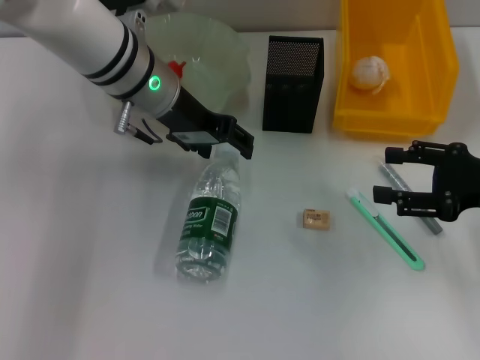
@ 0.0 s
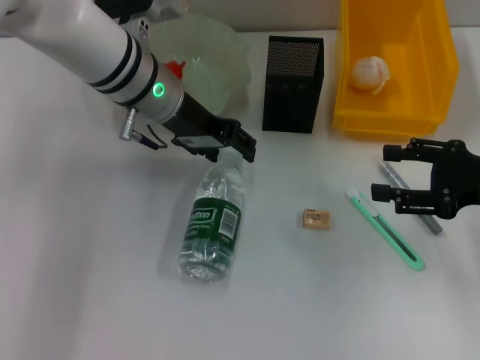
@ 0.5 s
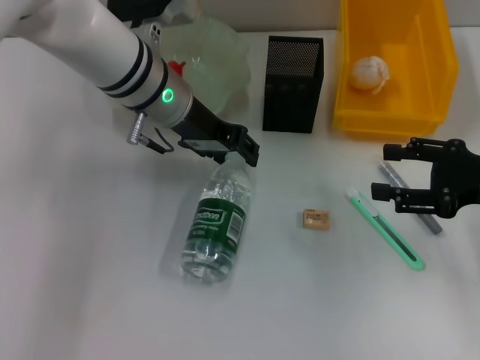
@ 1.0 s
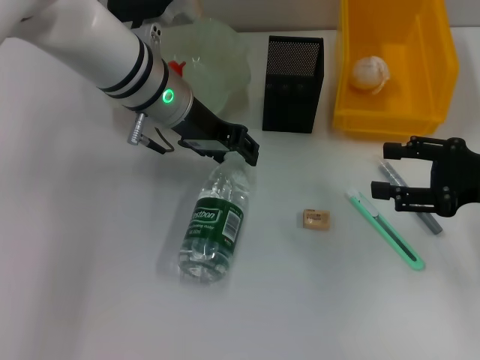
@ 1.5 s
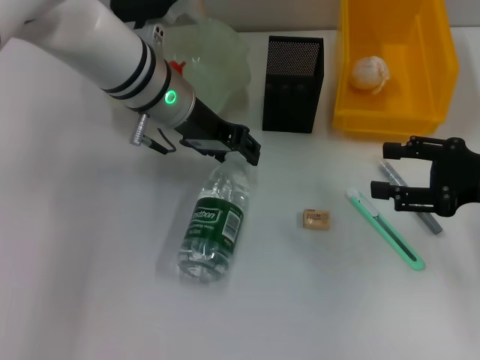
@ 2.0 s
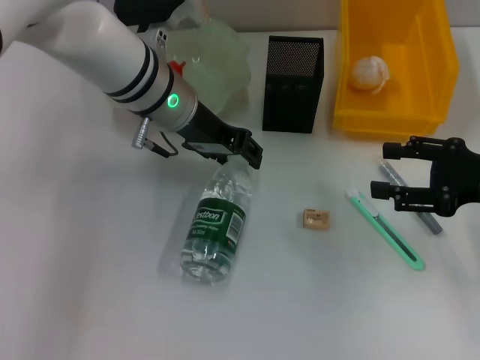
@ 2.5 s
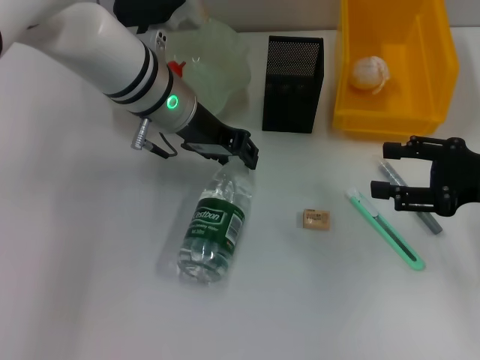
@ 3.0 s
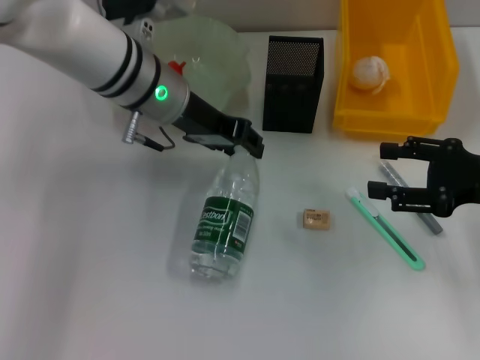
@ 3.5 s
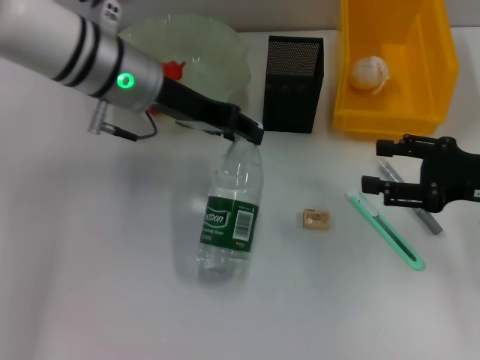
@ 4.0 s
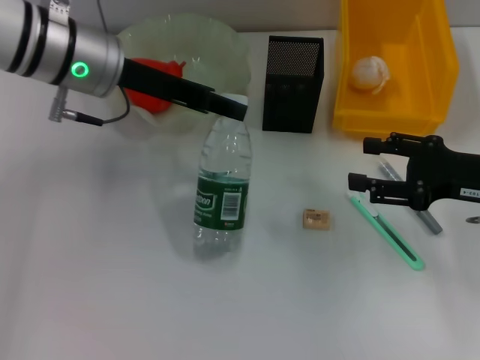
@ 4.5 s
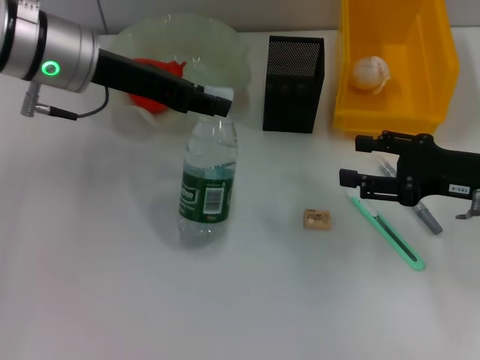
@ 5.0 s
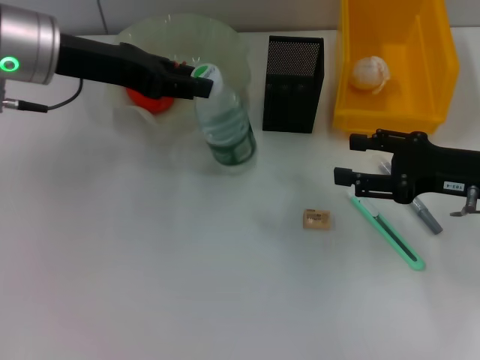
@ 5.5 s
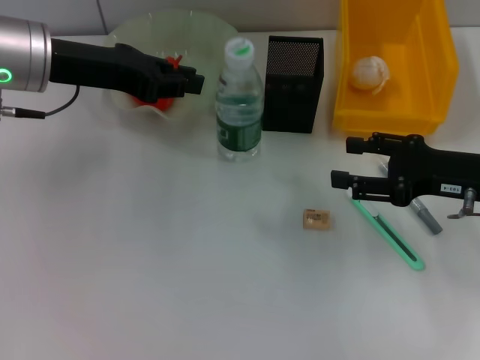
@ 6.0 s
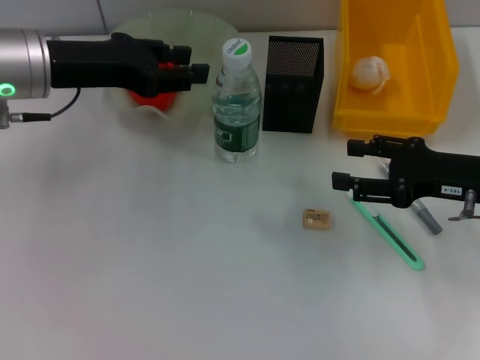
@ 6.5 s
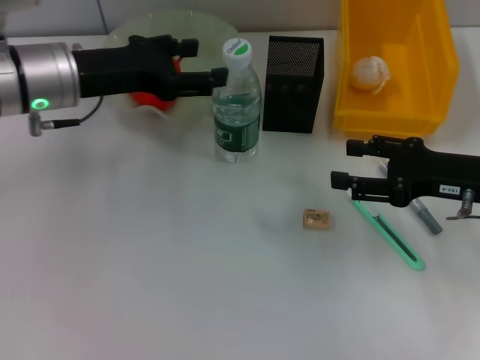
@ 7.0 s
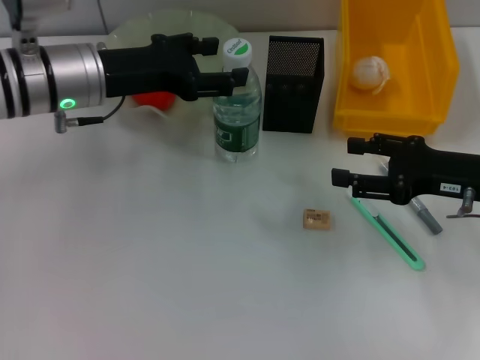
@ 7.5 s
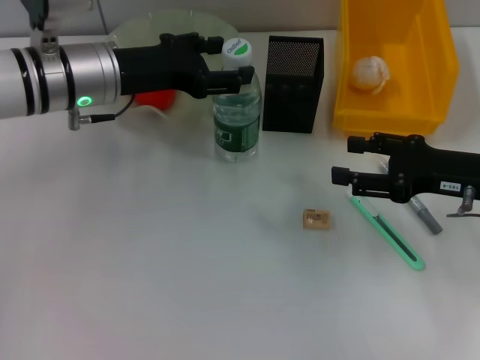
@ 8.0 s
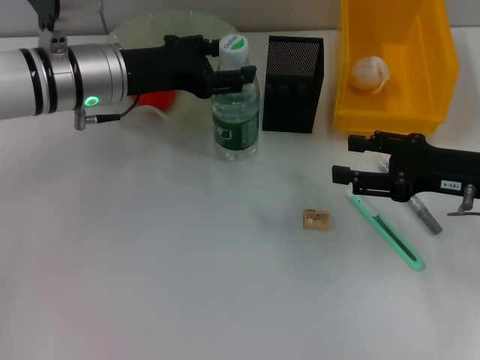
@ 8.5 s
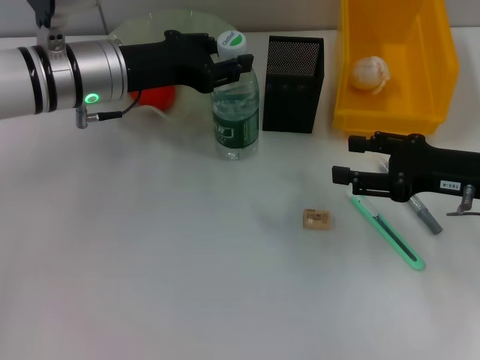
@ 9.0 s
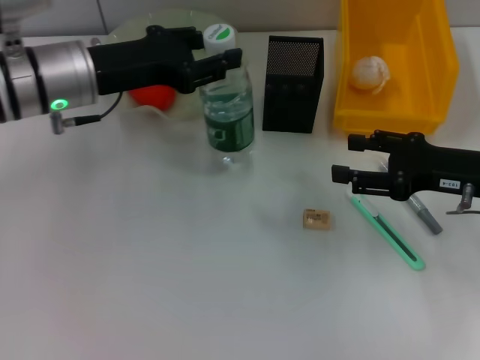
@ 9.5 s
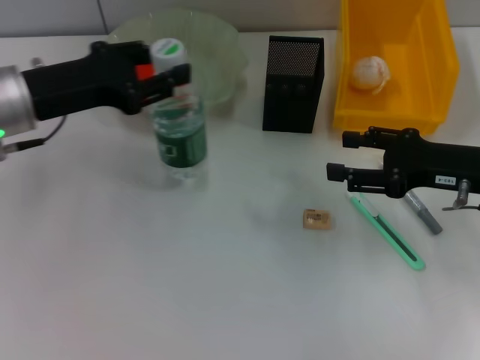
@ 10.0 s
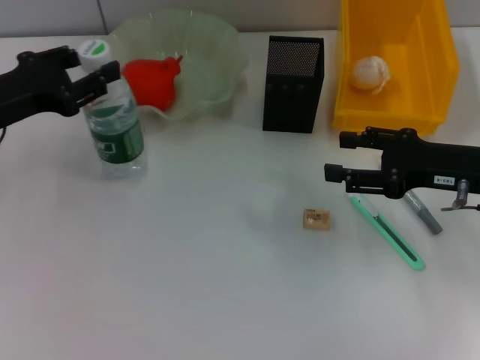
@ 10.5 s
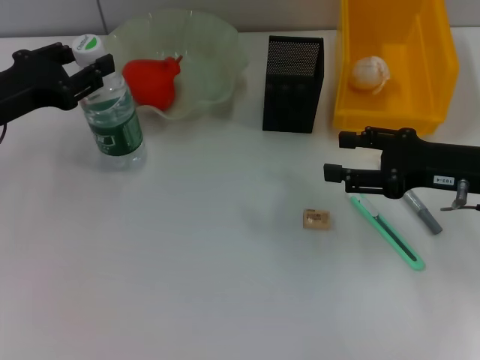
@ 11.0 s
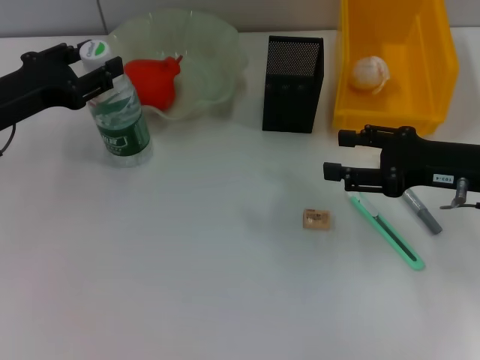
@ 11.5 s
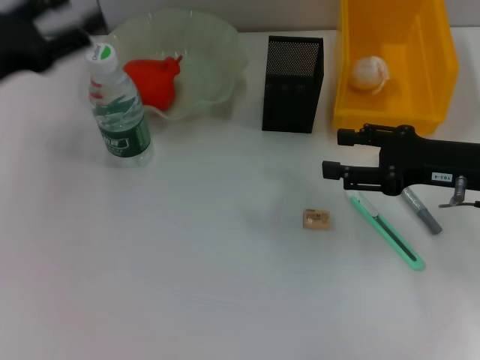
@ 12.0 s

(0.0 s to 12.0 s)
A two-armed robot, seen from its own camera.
Step, 0.0 s - 3.0 s: Grab the water bottle with the left hand.
Step, 3.5 s - 12.0 s: Place the water bottle on the table with the left hand.
0.0 s - 2.0 s: The left gripper closes its fingers.
2.0 s - 4.0 s: The grippers stay close to where they were, moving slightly.
4.0 s - 6.0 s: The left gripper goes approximately 10 cm to the left.
6.0 s - 8.0 s: The left gripper travels downward by roughly 5 cm, and opens.
8.0 s - 10.0 s: The left gripper goes about 10 cm to the left and backward, and closes.
10.0 s - 12.0 s: The left gripper moves to the left, about 5 cm, and opens.

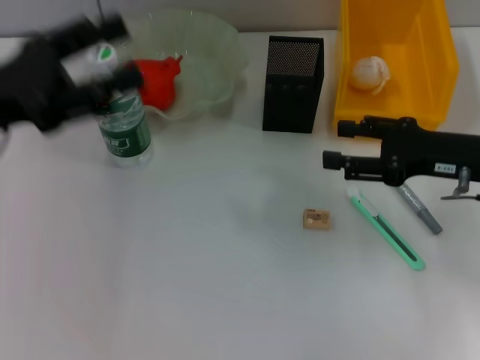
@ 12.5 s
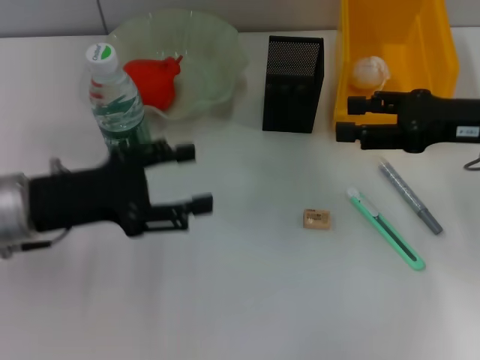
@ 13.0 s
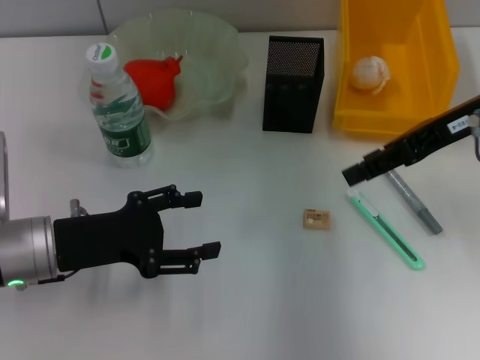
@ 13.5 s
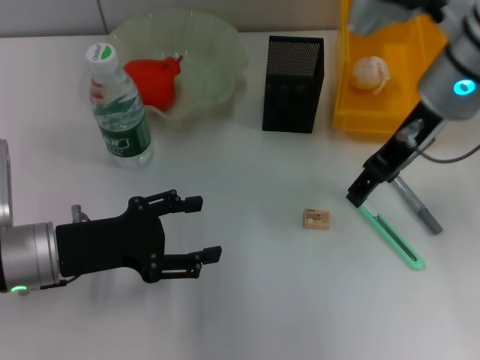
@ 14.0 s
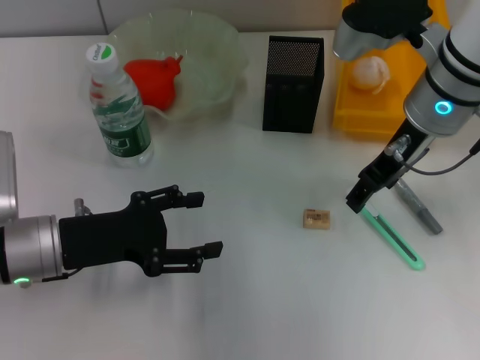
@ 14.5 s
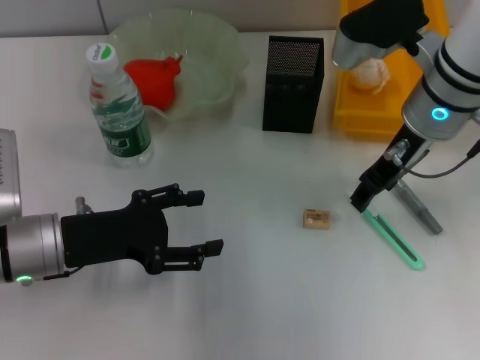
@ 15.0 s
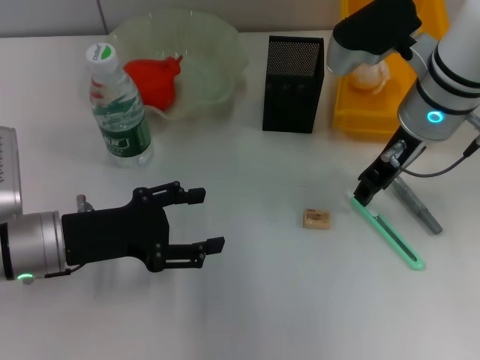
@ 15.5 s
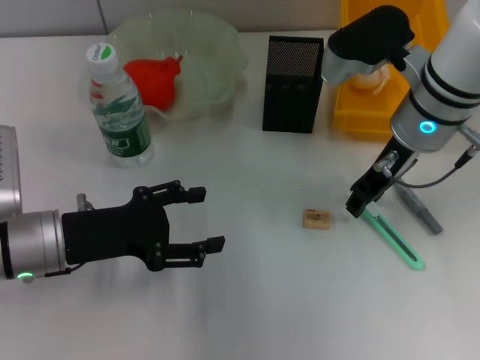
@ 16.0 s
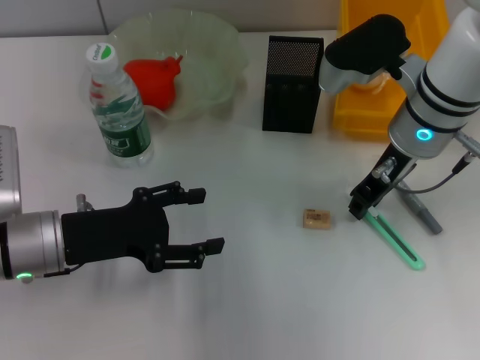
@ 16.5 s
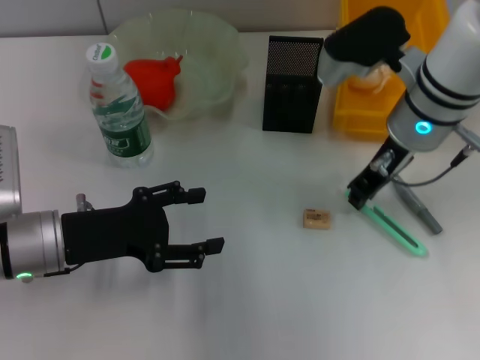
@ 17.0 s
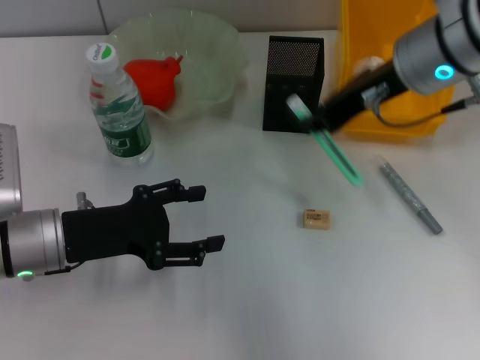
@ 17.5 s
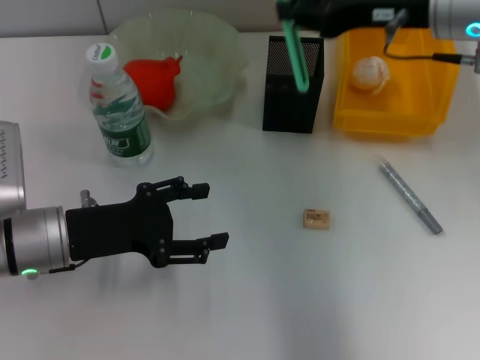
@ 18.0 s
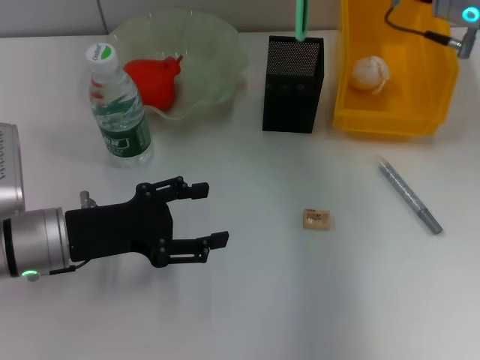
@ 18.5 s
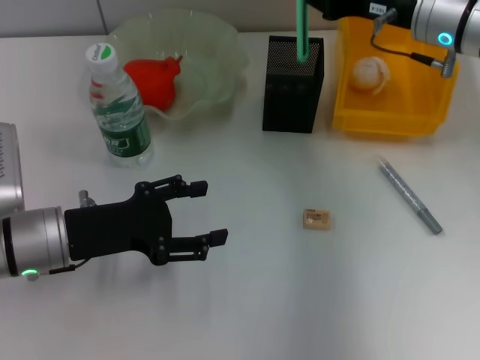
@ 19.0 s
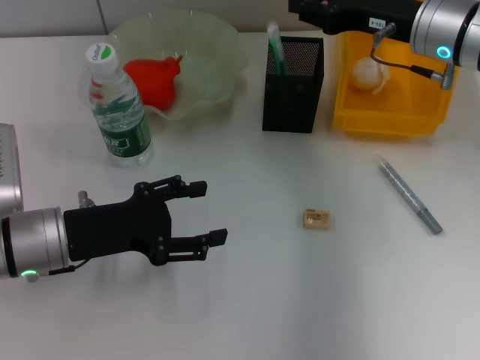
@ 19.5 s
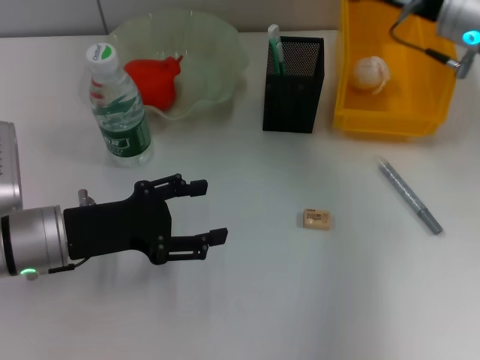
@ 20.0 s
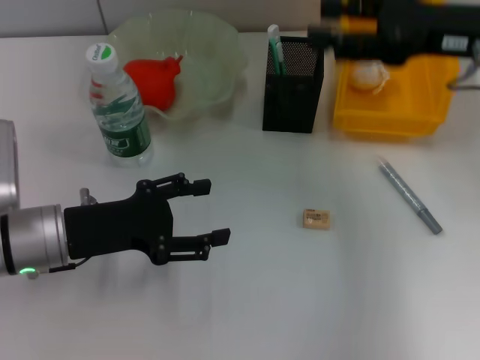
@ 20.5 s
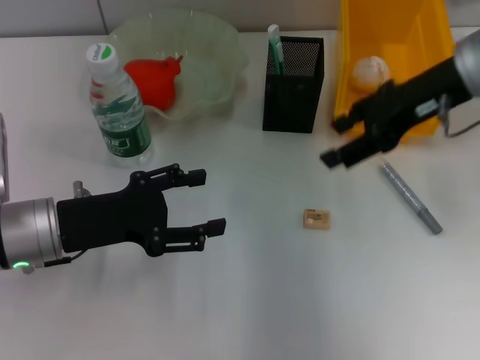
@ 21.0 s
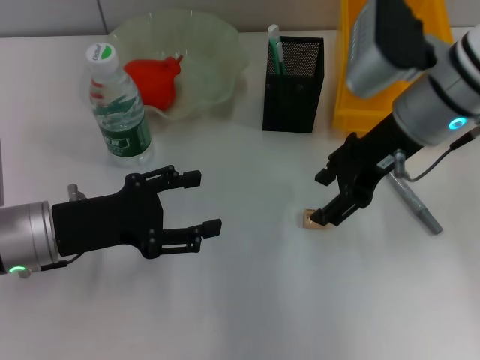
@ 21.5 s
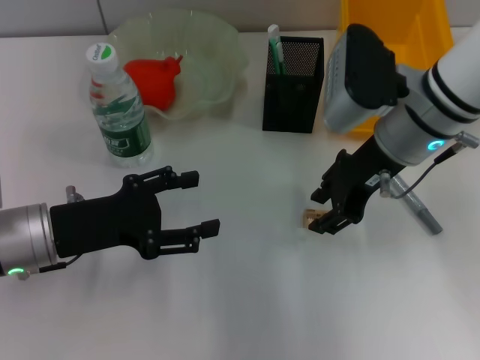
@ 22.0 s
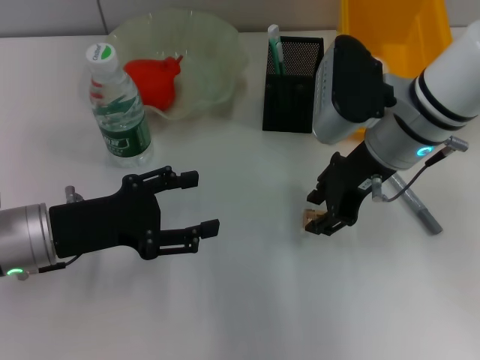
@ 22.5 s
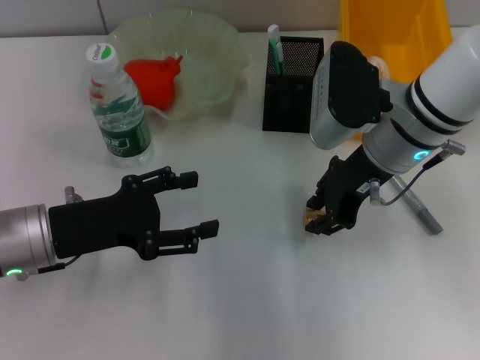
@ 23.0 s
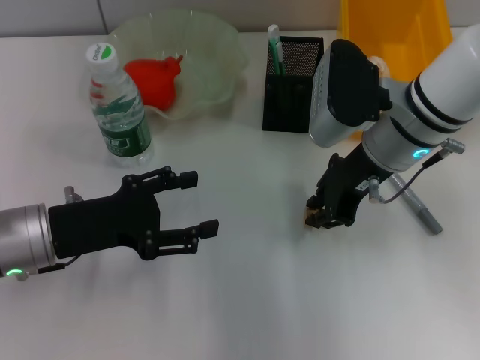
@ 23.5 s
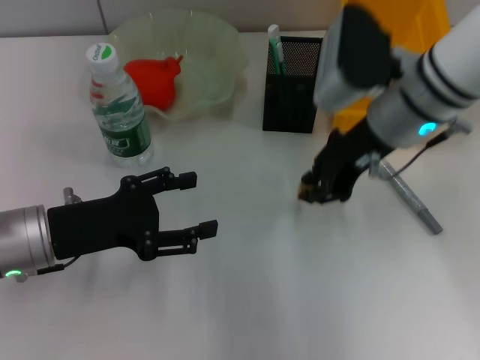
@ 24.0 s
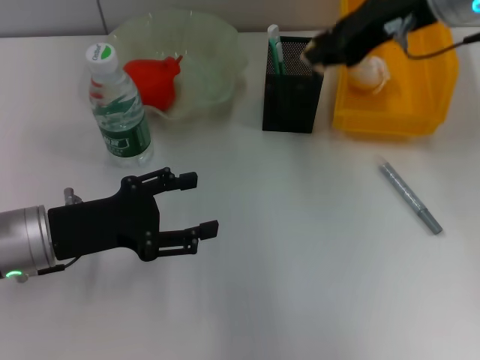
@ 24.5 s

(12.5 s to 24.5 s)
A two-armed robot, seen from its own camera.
Step, 12.5 s - 16.5 s: Grab the blue utility knife with the right hand.
Step, 17.0 s - 19.5 s: Place the blue utility knife into the pen holder with the right hand.
Step, 20.0 s - 23.0 s: Grab the eraser with the right hand.
12.5 s - 14.5 s: The right gripper moves to the left, upward and forward, some 15 cm. Meanwhile the left gripper goes some 10 cm downward.
14.5 s - 16.5 s: The right gripper closes up.
16.5 s - 18.5 s: The right gripper goes some 10 cm to the right and upward.
18.5 s - 20.5 s: The right gripper shifts approximately 5 cm backward, and opens.
20.5 s - 22.5 s: The right gripper is displaced to the left and downward by roughly 15 cm, and closes up.
22.5 s - 24.5 s: The right gripper shifts about 10 cm upward, and closes.

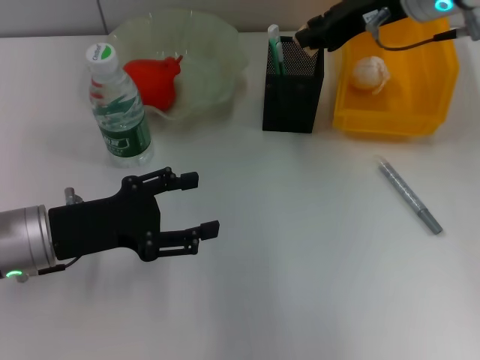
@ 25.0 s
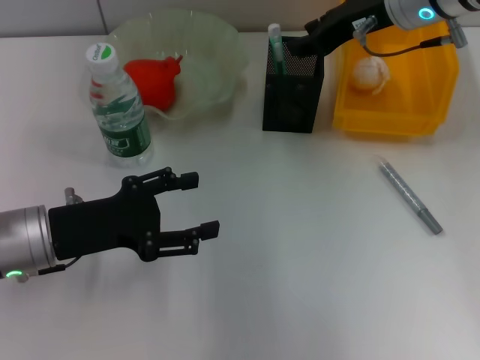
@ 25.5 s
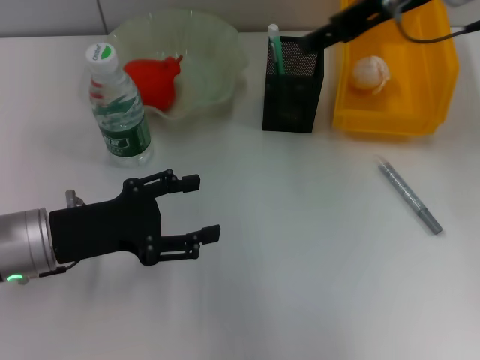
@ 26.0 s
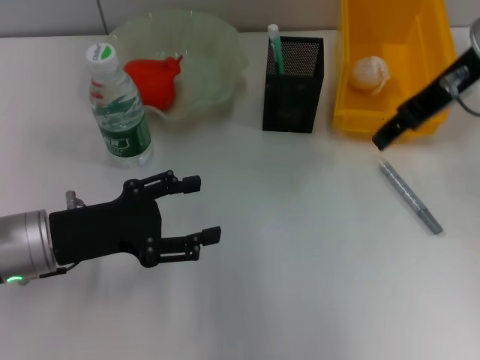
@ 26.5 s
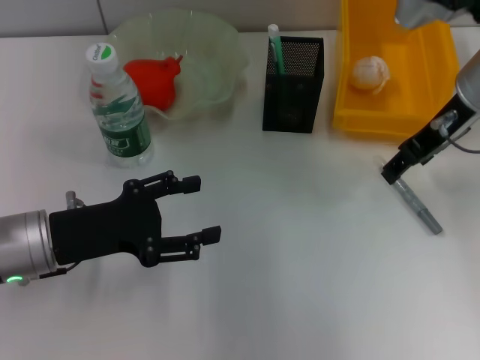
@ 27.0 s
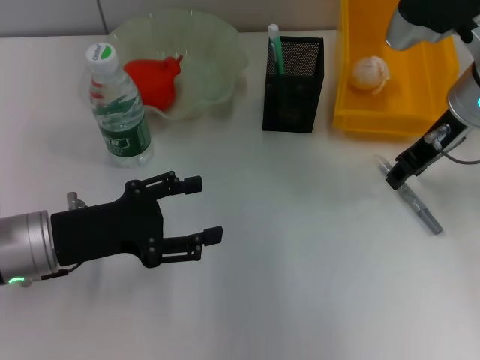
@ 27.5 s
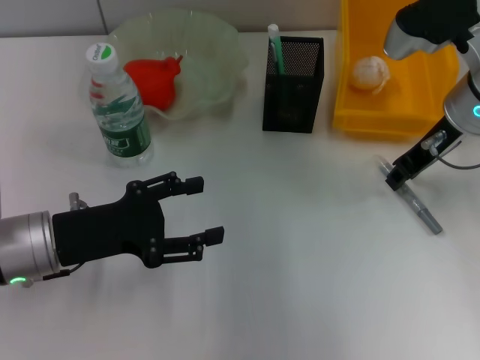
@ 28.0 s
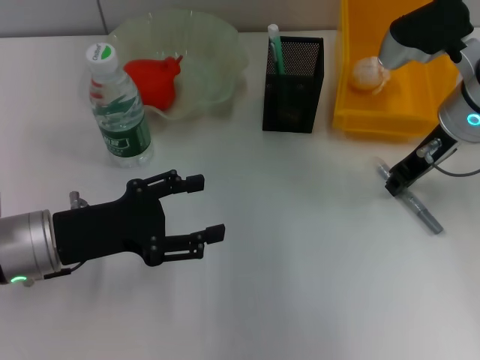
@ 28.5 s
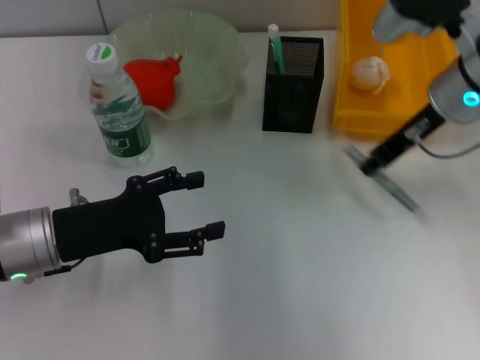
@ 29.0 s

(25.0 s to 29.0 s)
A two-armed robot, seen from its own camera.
Step, 26.0 s - 28.5 s: Grab the gray glue with the right hand.
25.0 s - 27.0 s: The right gripper ends up about 5 cm from where it was, and opens up.
27.0 s - 29.0 s: The right gripper closes up.
